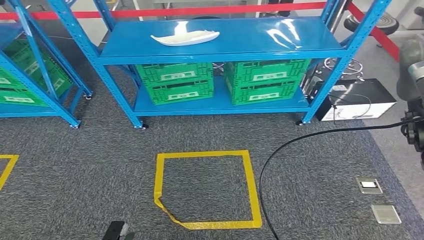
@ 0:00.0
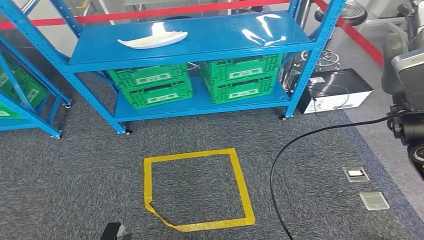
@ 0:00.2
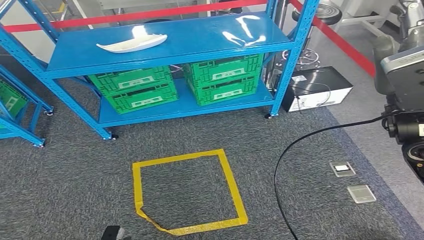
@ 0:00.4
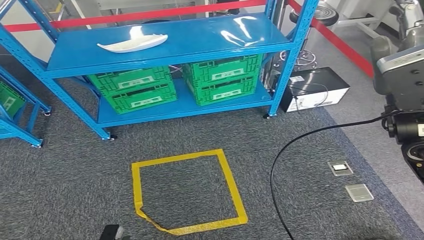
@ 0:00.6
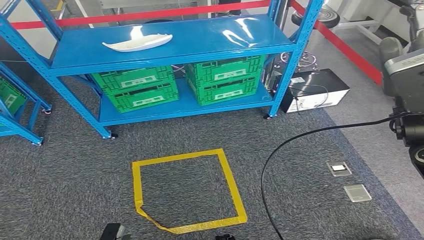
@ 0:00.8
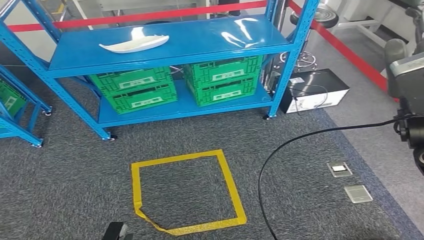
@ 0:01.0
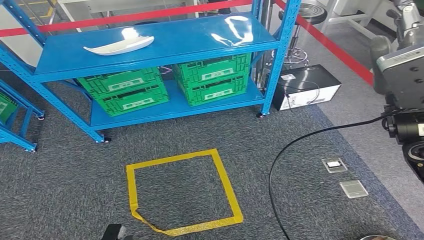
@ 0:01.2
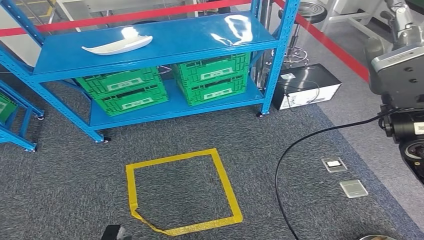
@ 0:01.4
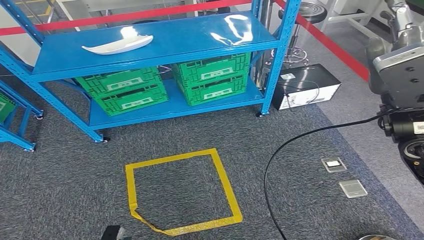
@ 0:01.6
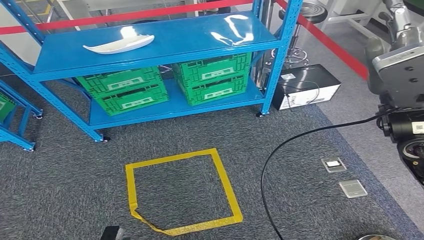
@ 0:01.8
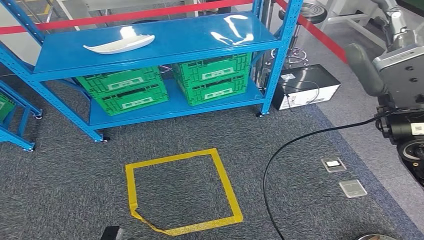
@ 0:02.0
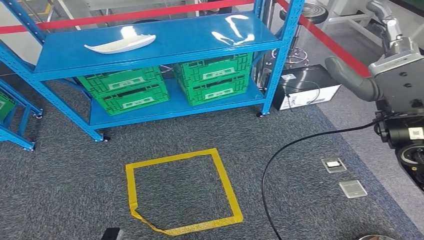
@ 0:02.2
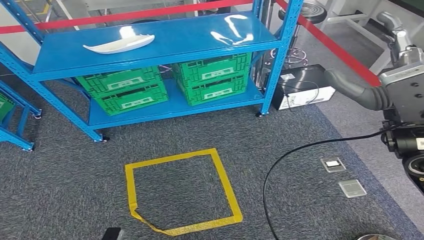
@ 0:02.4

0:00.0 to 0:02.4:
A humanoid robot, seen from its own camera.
Step, 0:00.0 to 0:02.4: Return to the initial position at the workbench.
0:01.2 to 0:02.4: The hands move only a little.
